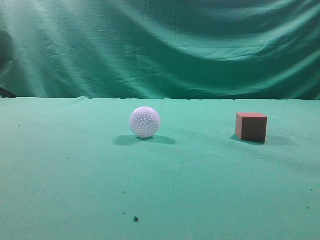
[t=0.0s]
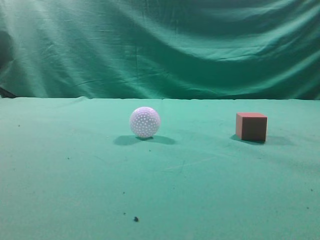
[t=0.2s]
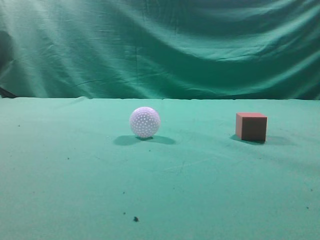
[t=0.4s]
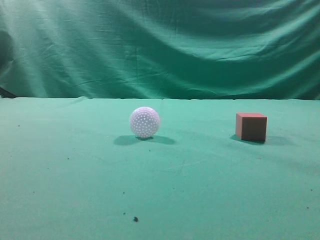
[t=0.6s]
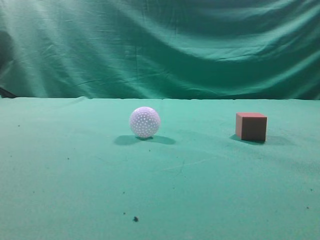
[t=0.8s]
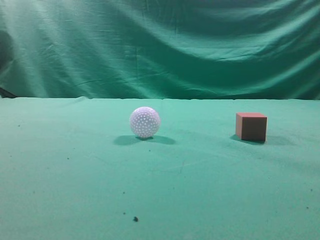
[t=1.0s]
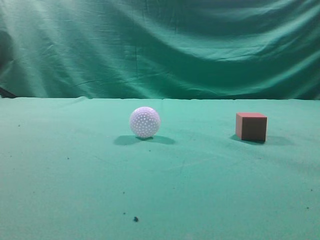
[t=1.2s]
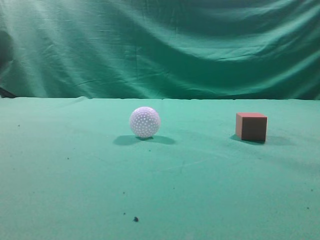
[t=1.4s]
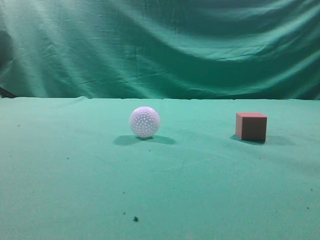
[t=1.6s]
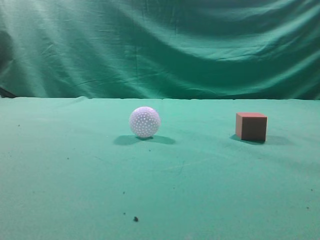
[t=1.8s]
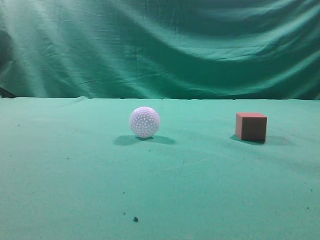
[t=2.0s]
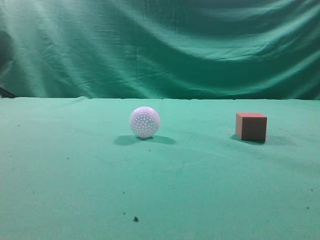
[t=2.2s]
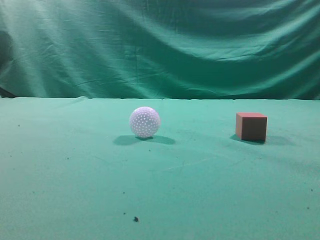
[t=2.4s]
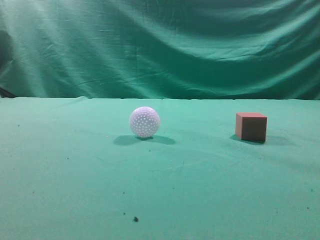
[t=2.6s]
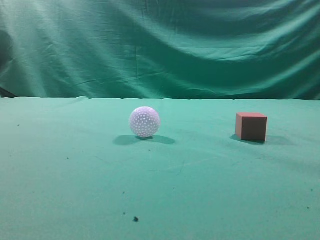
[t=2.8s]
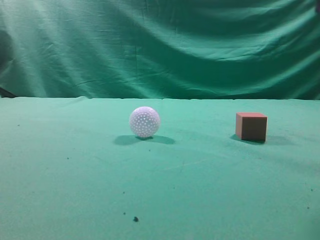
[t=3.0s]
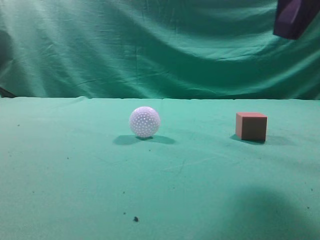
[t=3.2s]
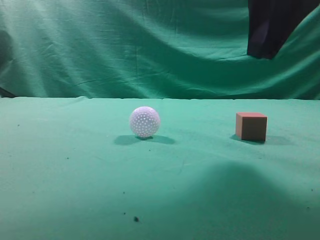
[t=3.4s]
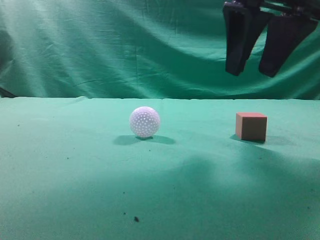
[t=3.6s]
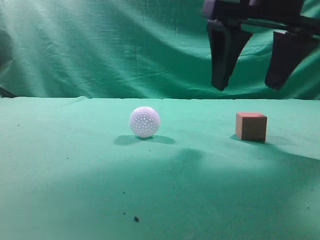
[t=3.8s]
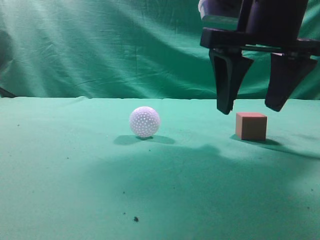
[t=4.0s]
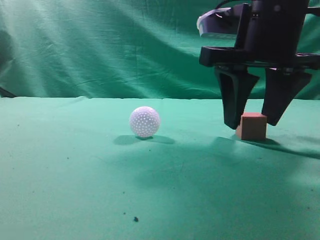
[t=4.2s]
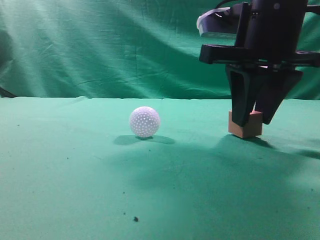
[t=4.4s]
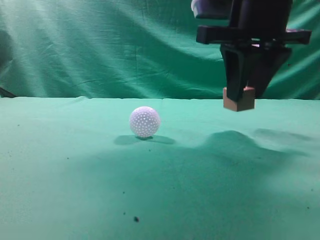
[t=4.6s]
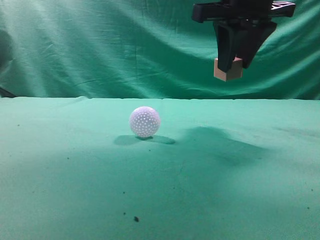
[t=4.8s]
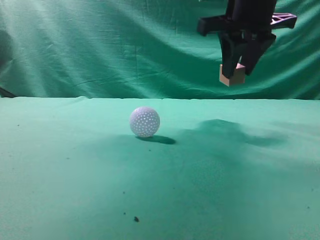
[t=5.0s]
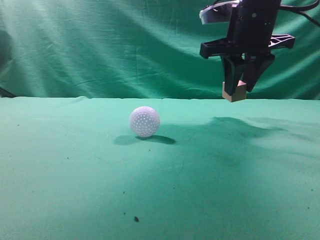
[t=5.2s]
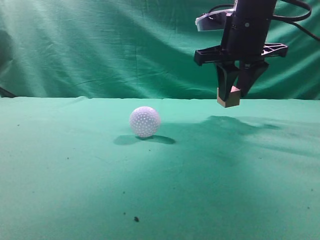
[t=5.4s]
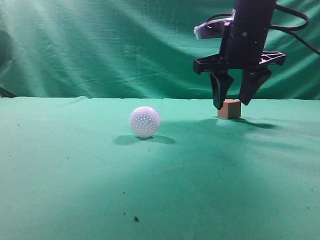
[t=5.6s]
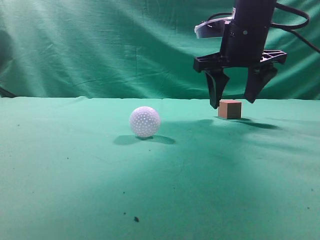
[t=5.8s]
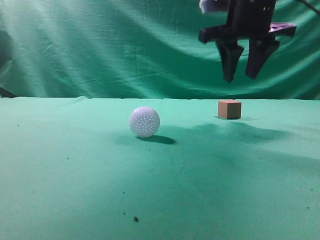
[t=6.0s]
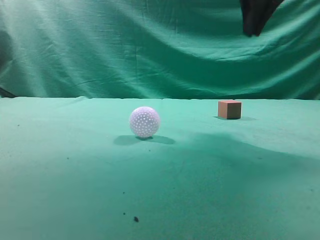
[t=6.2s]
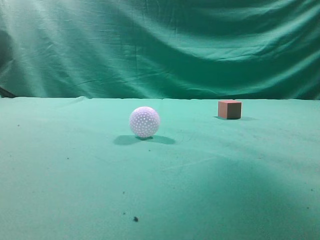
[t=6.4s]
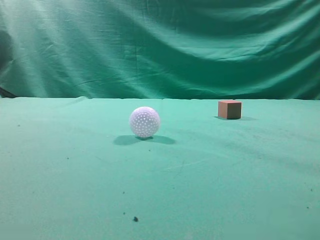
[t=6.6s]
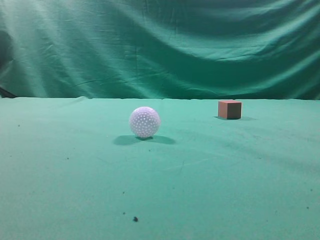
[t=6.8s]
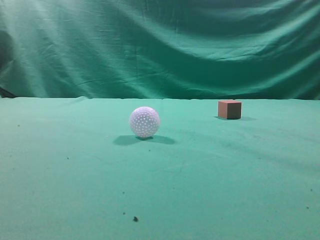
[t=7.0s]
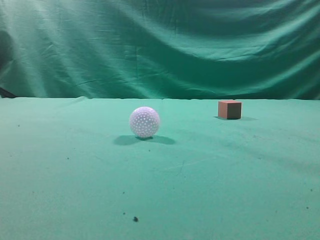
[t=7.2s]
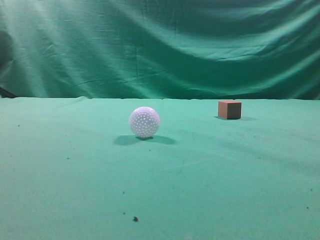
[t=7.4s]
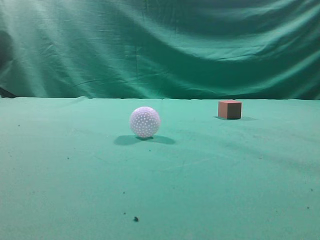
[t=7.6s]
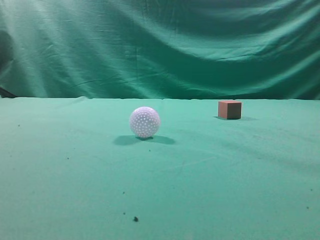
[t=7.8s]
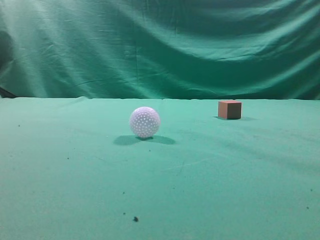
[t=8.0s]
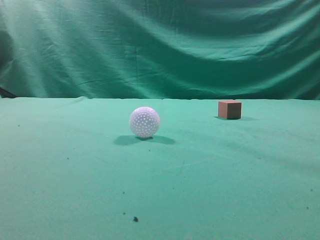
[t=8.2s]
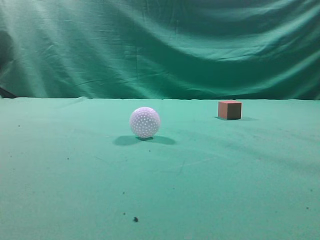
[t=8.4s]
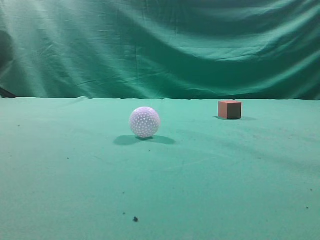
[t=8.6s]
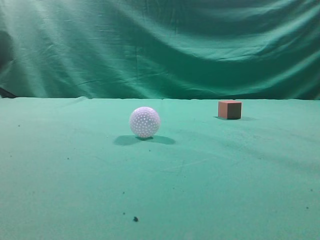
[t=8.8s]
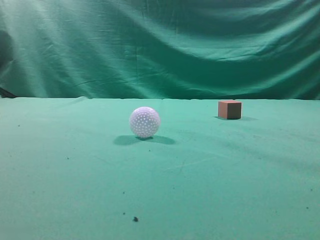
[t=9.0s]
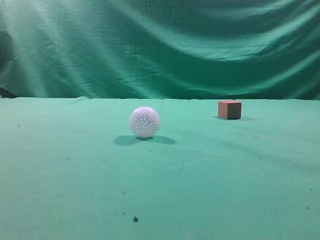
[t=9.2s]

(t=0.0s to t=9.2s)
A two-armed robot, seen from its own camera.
Task of the whole recording: pick up the cube block and place it in another position on the table.
Step, t=0.0s - t=4.4s: Pick up the small cube.
Step, t=4.6s - t=5.6s: Place the small cube on the ahead of the table.
t=3.0s - t=4.6s: The right gripper moves forward, to the left and downward, about 15 cm, and opens its fingers.
t=4.6s - t=6.2s: The right gripper goes some 10 cm upward, and closes up.
t=6.2s - t=7.6s: The right gripper is displaced backward by roughly 25 cm.

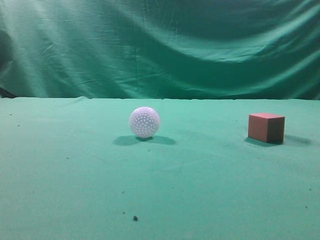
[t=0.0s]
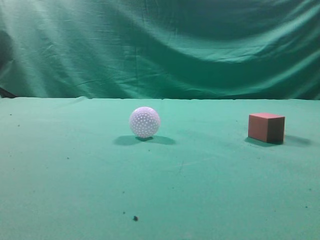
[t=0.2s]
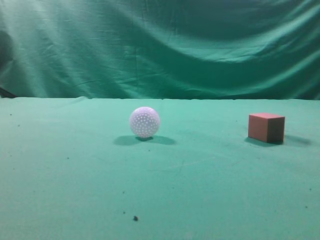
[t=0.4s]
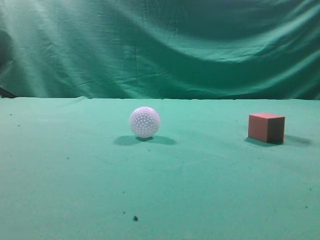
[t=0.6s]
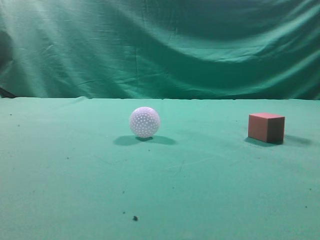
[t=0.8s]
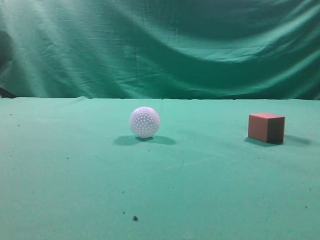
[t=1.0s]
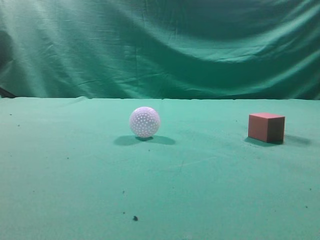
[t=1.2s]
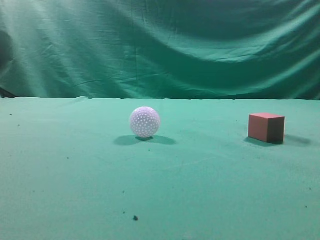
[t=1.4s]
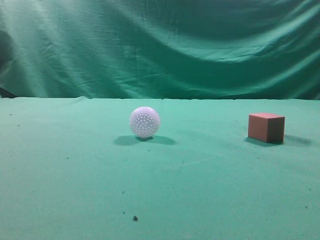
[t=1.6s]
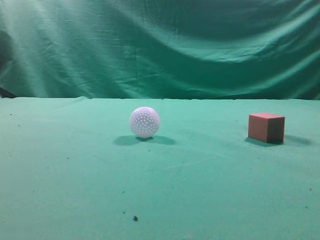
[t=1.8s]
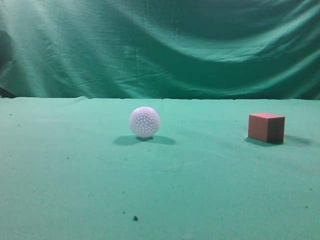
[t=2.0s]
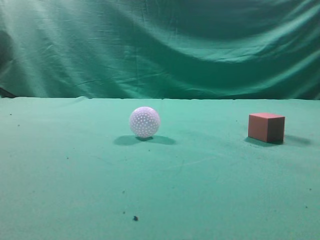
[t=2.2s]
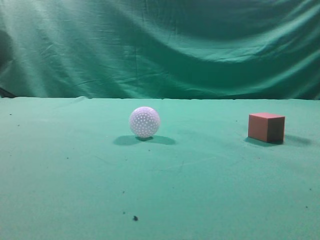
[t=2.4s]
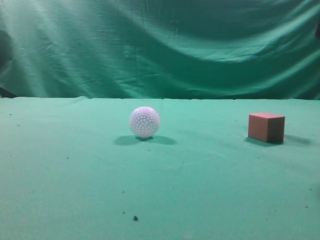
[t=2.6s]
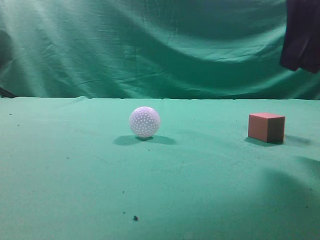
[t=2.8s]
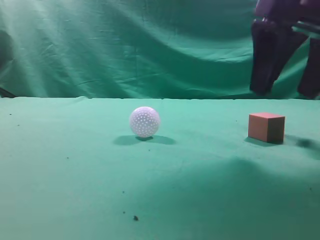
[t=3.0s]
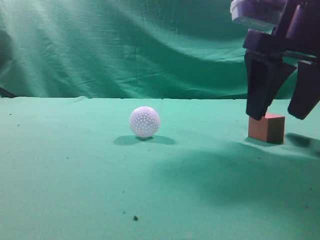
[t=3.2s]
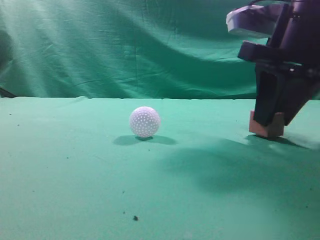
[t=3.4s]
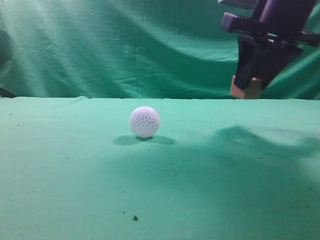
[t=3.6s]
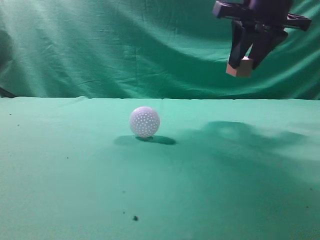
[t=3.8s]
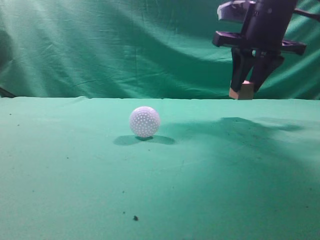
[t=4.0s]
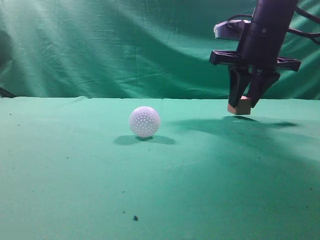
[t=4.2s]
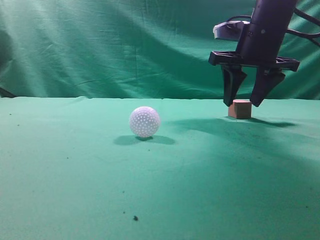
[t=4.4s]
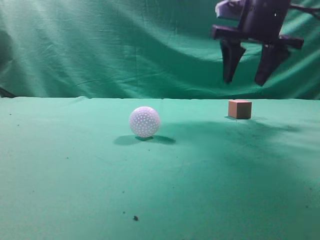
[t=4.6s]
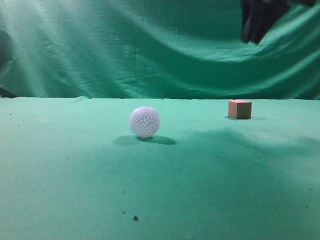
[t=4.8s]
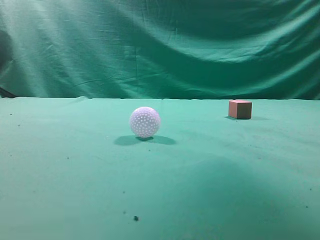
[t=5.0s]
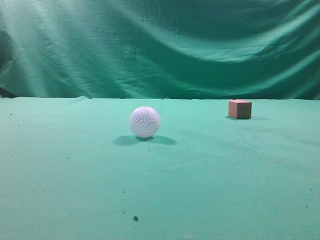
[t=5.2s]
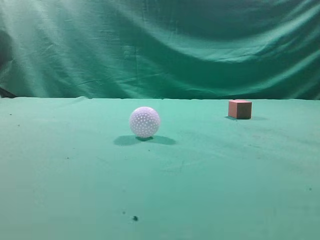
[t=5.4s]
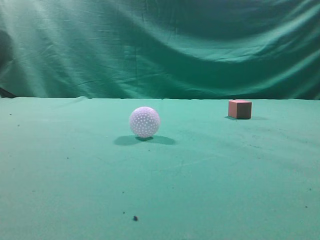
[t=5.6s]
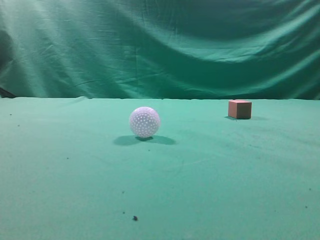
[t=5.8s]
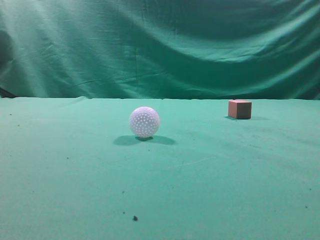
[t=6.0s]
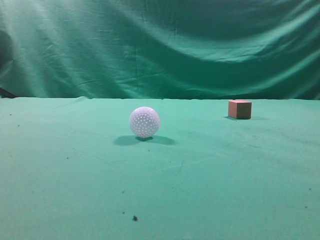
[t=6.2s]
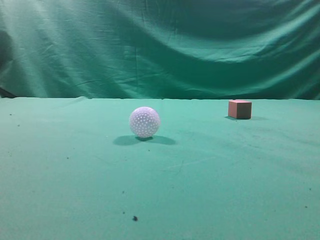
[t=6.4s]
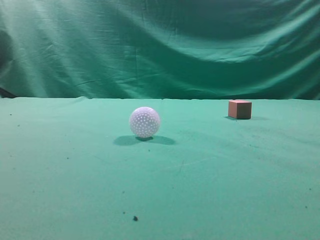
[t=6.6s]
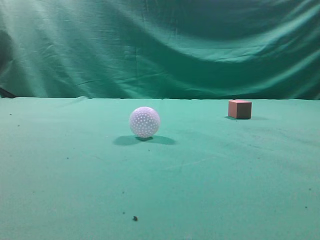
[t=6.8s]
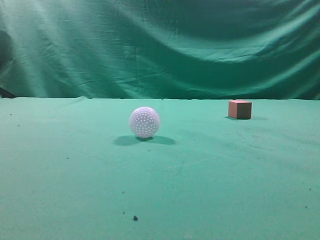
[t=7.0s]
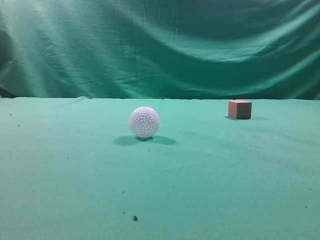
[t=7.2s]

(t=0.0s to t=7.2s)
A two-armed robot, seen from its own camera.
Task of the whole recording: pick up the cube block and place it in another position on the table.
Step, t=0.0s - t=3.4s: Pick up the small cube.
Step, t=3.6s - t=4.4s: Place the small cube on the ahead of the table.
t=1.4s - t=2.8s: The right gripper is displaced forward and to the left by some 25 cm, and opens.
t=2.8s - t=4.4s: The right gripper goes approximately 15 cm forward.
t=4.4s - t=5.8s: The right gripper shifts about 35 cm backward and upward, and closes up.

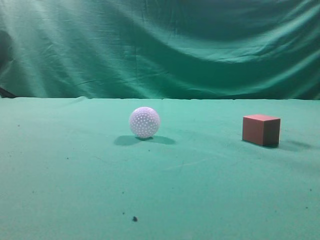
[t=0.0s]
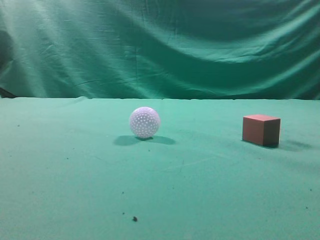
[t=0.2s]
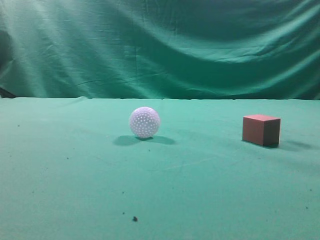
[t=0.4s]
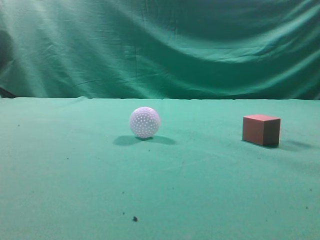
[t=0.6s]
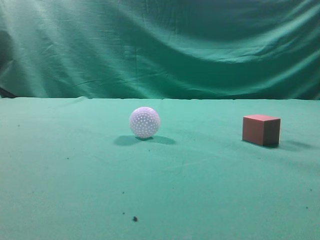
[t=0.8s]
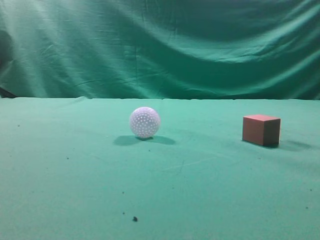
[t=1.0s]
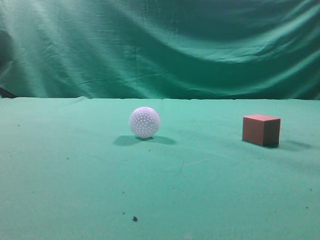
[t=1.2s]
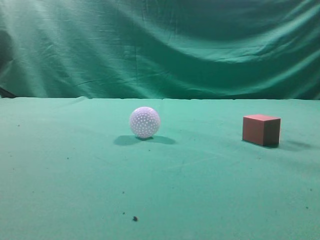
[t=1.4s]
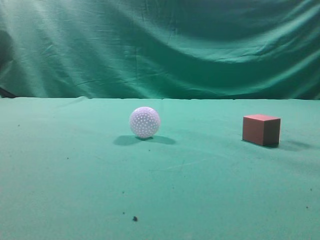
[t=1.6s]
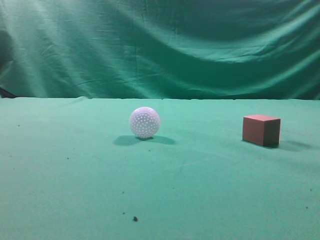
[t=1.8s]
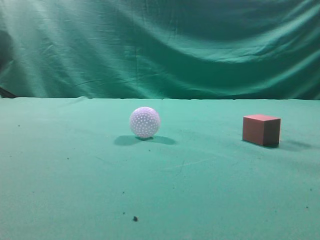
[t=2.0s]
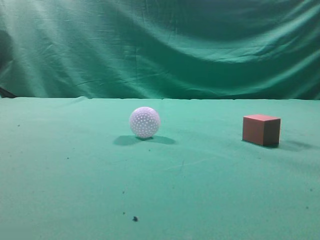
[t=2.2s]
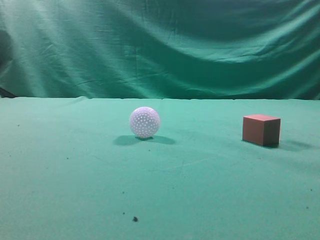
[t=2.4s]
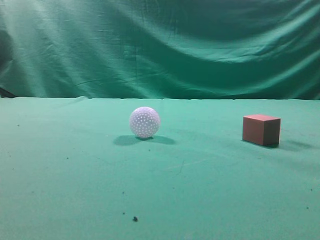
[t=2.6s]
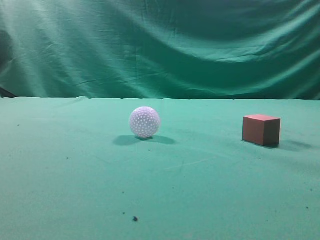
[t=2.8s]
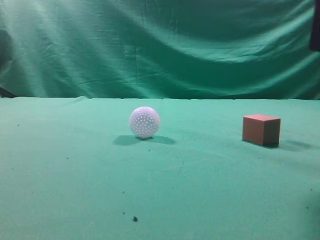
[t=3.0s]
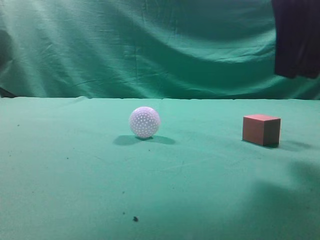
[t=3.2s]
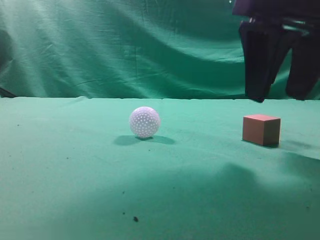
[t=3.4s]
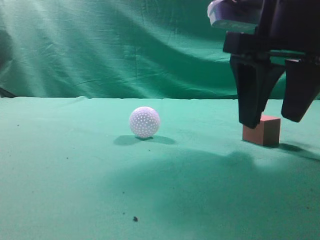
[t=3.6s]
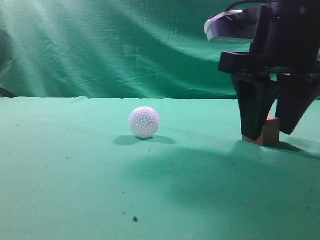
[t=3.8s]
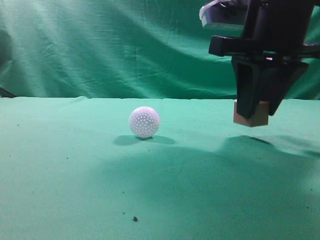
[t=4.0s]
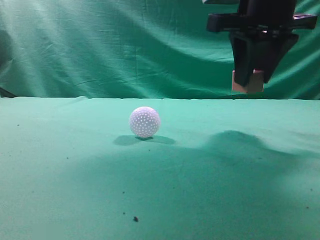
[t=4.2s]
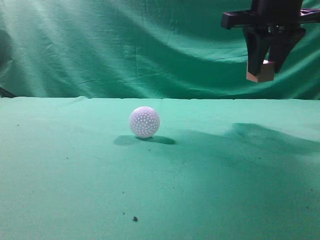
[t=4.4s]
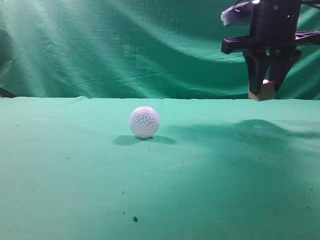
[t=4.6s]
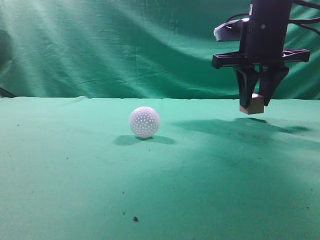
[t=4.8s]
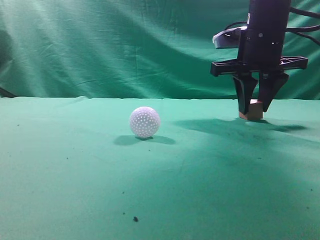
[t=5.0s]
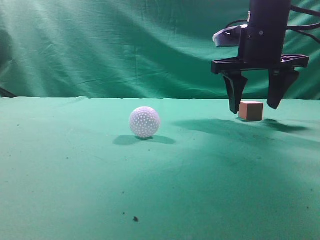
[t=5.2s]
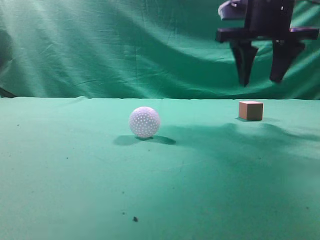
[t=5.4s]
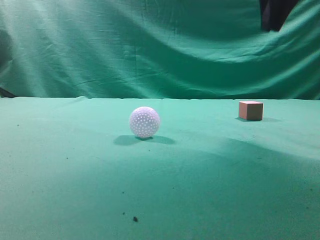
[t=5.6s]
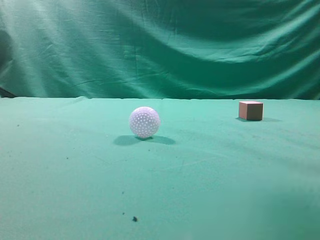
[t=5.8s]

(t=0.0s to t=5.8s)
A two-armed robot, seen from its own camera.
Task of the whole recording: pick up the cube block and place it in another position on the table.
Step, t=0.0s - t=3.8s: Pick up the small cube.
Step, t=4.2s - t=5.2s: Place the small cube on the ahead of the table.
t=2.8s - t=4.4s: The right gripper goes some 20 cm forward, and opens up.
t=4.4s - t=5.8s: The right gripper goes some 15 cm upward and backward, and closes.
